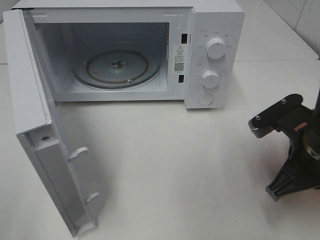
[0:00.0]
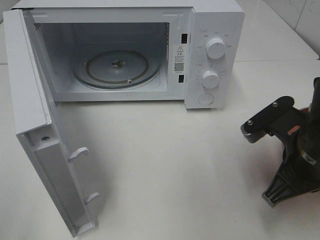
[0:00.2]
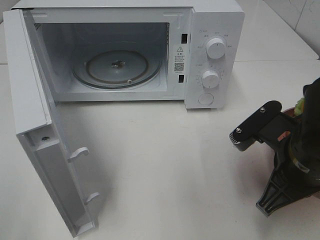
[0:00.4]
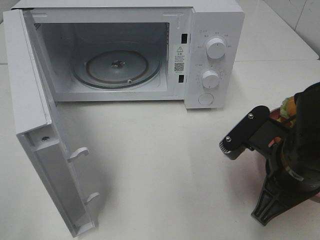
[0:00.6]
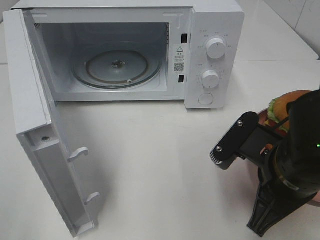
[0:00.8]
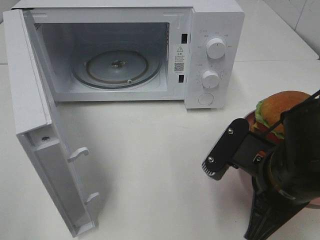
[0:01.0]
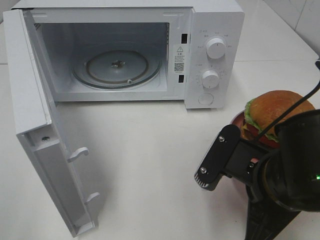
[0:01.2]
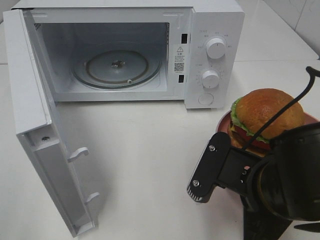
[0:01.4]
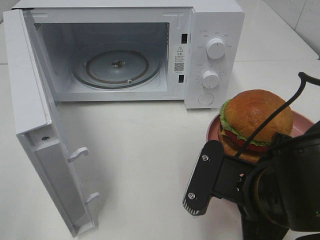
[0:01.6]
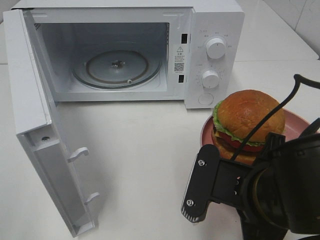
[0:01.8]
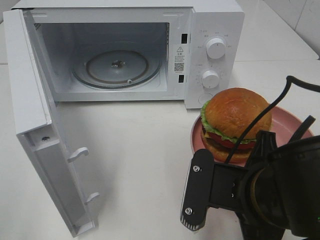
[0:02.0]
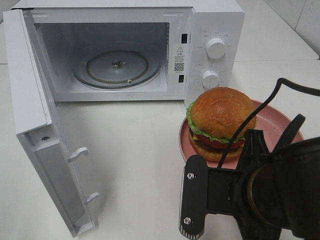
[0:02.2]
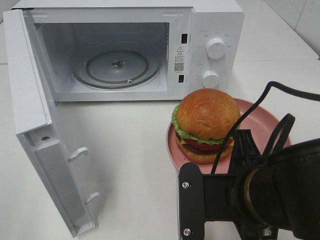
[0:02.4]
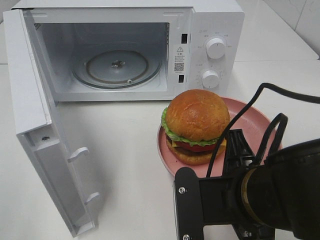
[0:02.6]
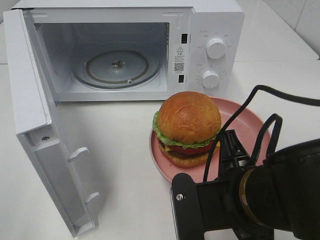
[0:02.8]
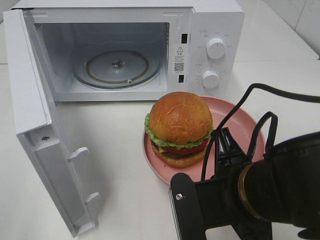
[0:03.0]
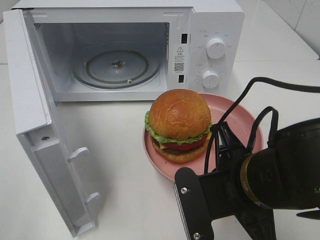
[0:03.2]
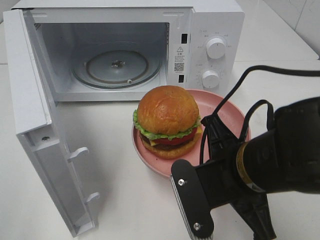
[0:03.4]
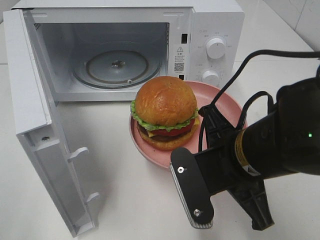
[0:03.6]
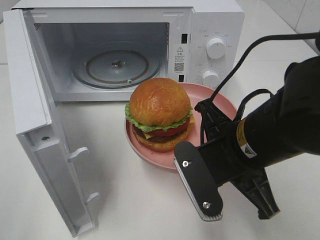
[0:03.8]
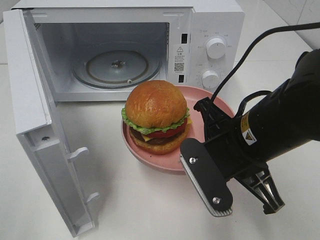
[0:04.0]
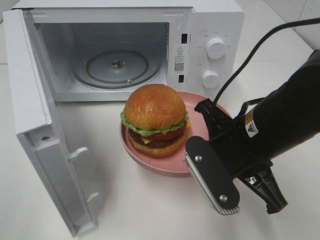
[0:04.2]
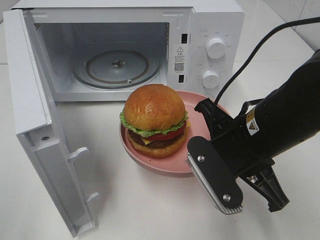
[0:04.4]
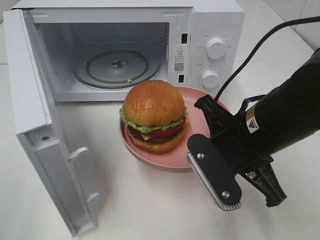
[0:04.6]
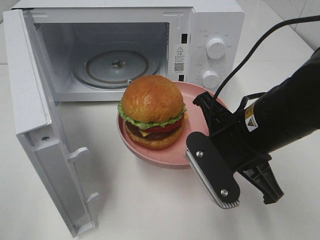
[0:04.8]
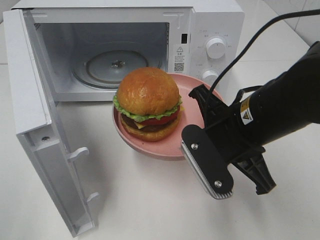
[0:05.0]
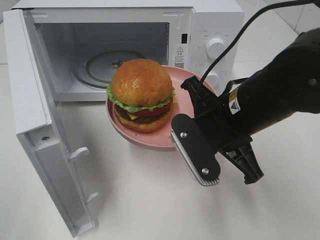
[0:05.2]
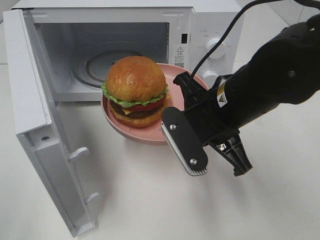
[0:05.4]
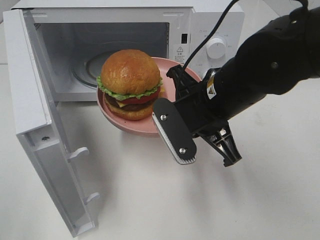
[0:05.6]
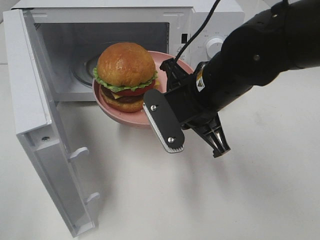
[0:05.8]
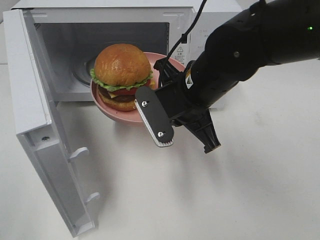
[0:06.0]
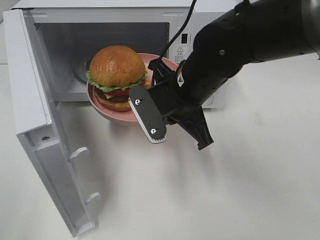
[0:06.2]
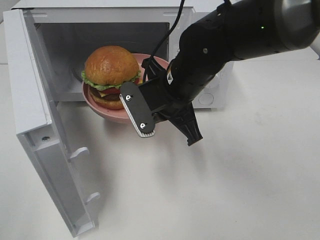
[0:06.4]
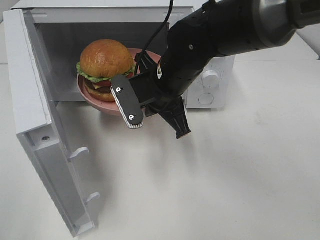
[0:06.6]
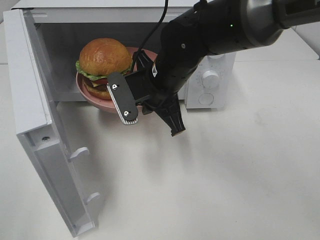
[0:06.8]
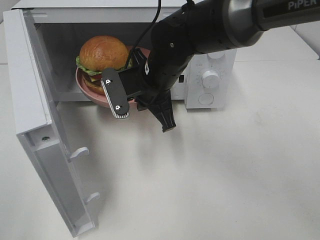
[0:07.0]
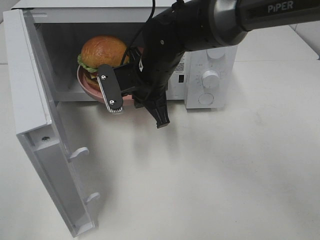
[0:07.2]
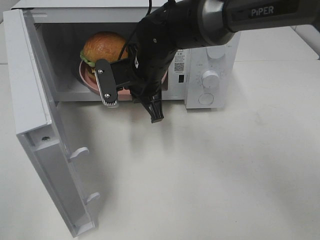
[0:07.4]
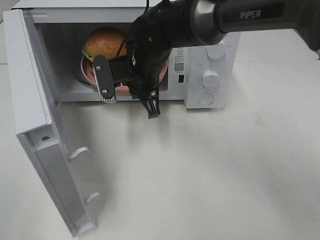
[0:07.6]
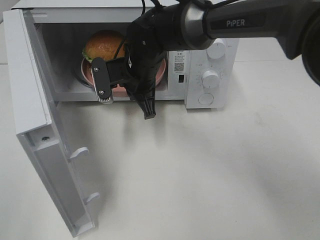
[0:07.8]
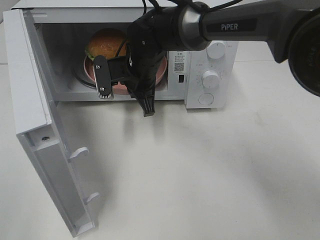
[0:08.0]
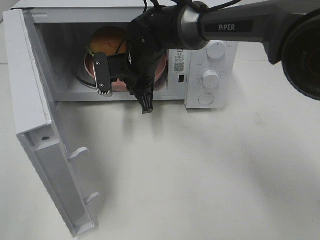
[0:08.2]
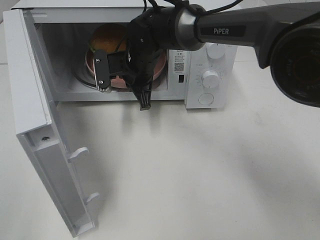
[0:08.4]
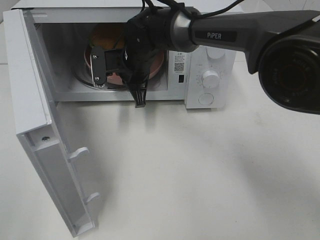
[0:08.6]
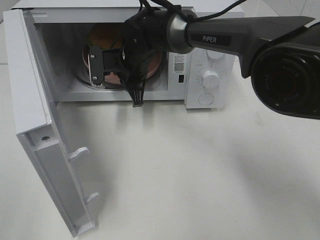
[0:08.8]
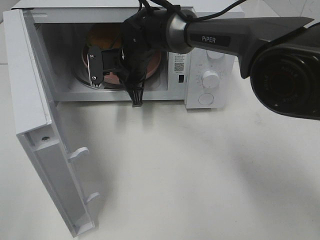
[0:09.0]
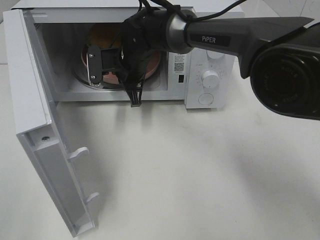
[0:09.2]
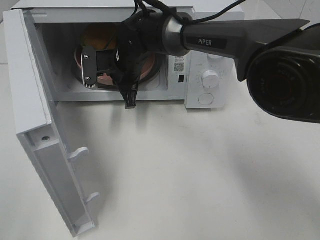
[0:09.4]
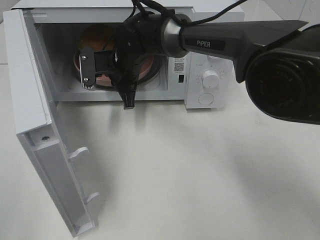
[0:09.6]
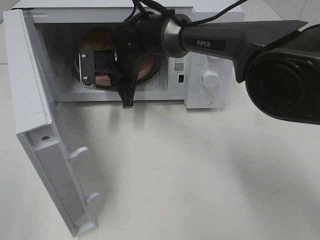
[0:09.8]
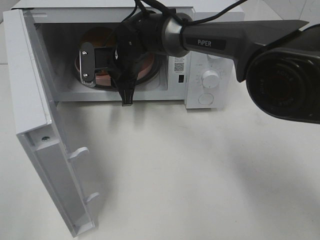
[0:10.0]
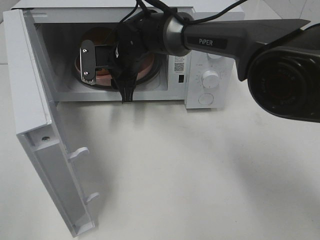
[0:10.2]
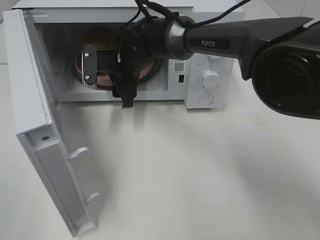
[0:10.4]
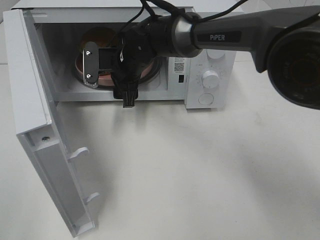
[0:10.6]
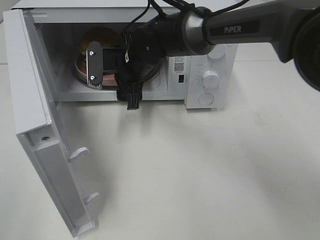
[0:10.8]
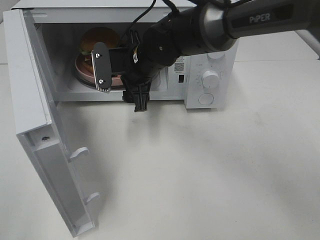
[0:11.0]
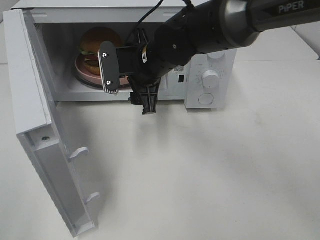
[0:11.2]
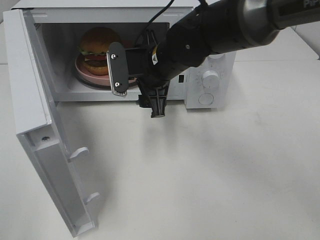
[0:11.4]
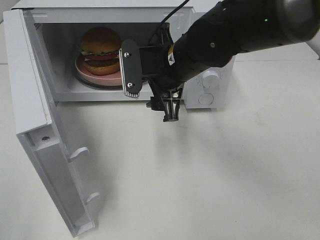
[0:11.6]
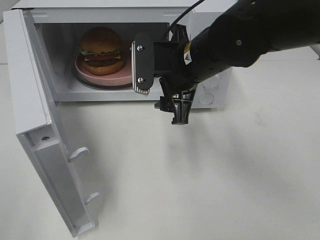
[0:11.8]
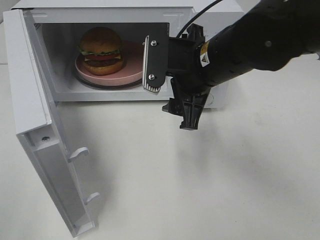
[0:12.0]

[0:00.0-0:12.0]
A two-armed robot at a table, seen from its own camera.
Task of the whole recording: Heat the burger.
Step, 0:00.0 to 0:10.2: Right hand: place the plate in the microwave.
0:00.0 to 0:01.6: The right gripper goes some 10 cm to the left and backward.
0:03.0 to 0:04.4: The right gripper travels forward by about 5 cm.
0:04.4 to 0:06.0: The right gripper travels forward and to the left by approximately 10 cm.
0:06.0 to 0:07.6: The right gripper is displaced forward and to the left by approximately 15 cm.
0:07.6 to 0:09.0: The right gripper goes some 5 cm forward.
0:09.0 to 0:10.4: The right gripper opens up.
0:10.4 to 0:12.0: The right gripper shifts roughly 20 cm backward, to the right and upward.

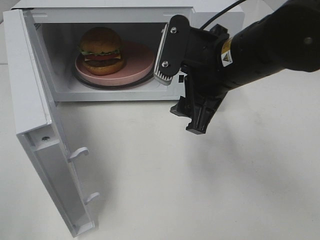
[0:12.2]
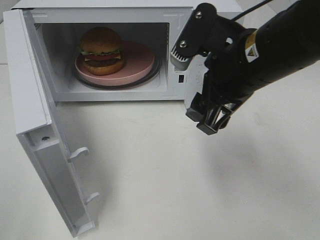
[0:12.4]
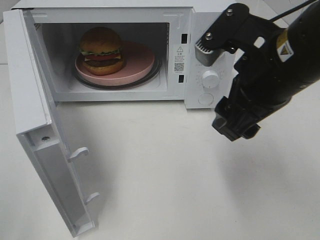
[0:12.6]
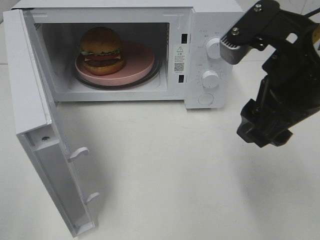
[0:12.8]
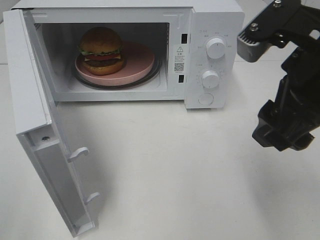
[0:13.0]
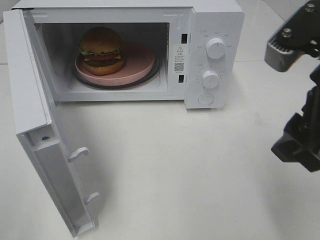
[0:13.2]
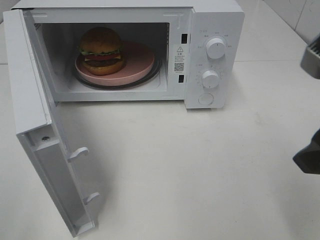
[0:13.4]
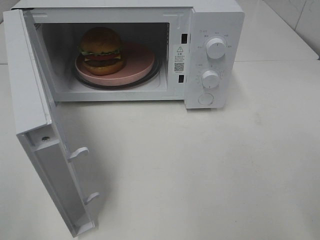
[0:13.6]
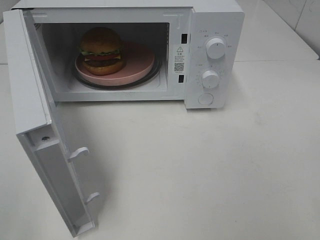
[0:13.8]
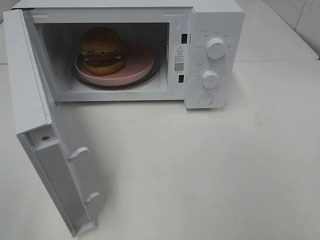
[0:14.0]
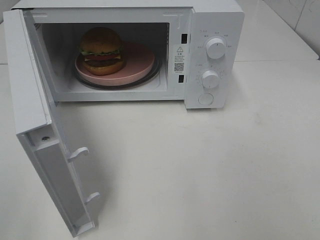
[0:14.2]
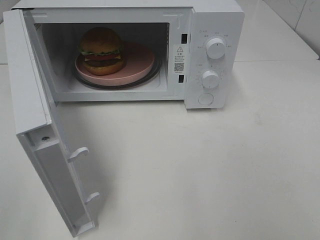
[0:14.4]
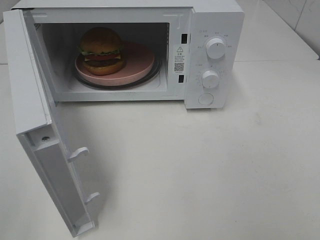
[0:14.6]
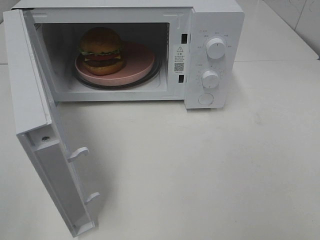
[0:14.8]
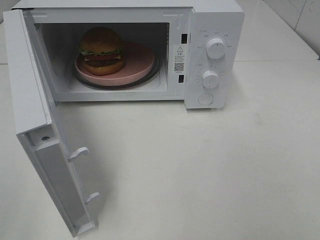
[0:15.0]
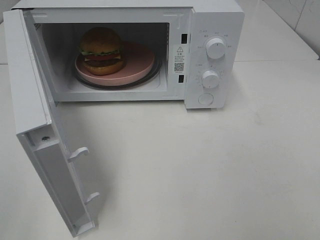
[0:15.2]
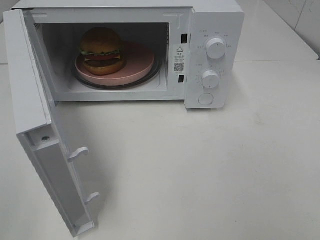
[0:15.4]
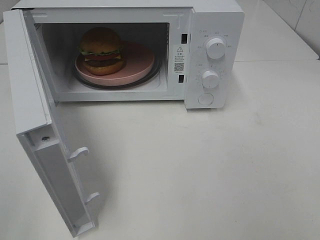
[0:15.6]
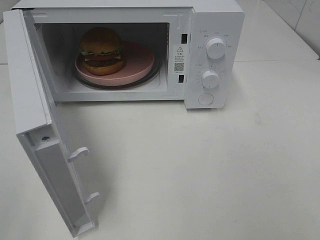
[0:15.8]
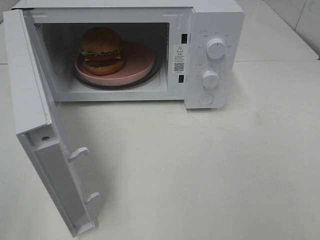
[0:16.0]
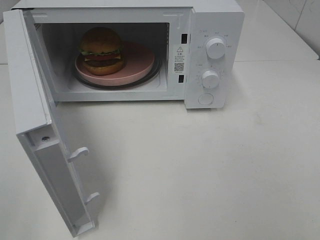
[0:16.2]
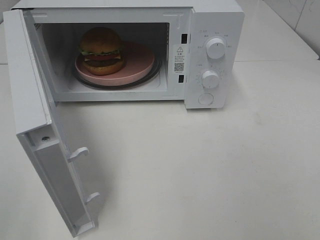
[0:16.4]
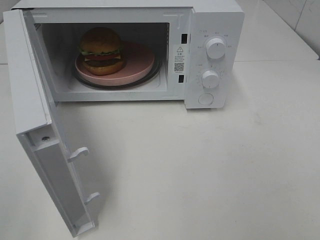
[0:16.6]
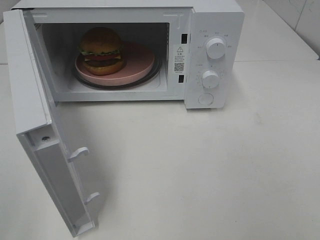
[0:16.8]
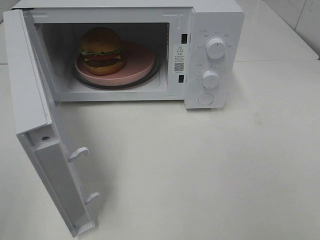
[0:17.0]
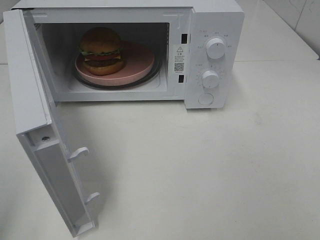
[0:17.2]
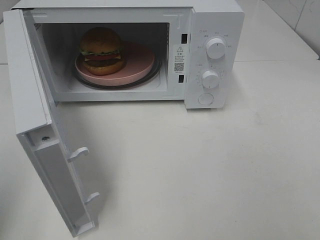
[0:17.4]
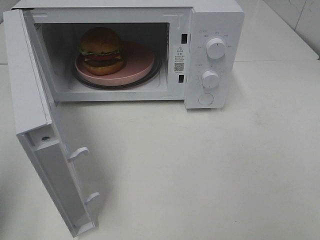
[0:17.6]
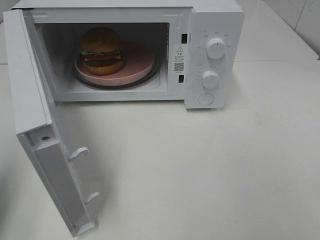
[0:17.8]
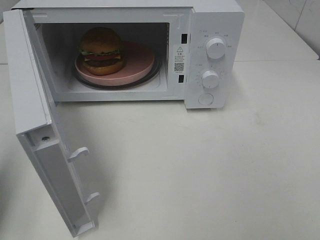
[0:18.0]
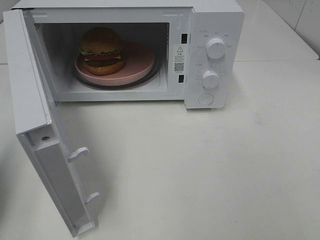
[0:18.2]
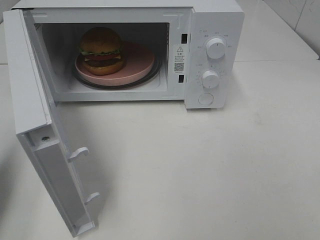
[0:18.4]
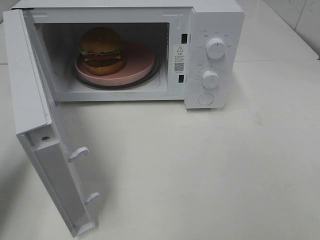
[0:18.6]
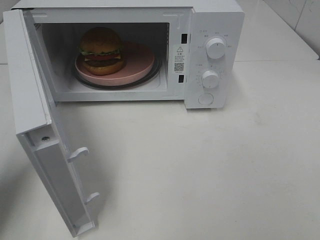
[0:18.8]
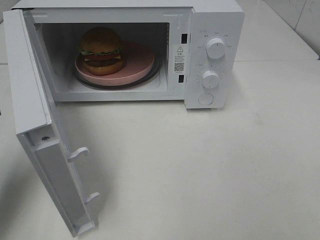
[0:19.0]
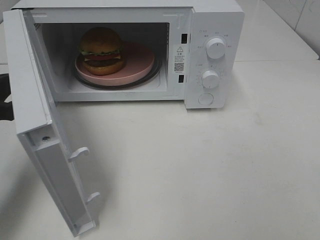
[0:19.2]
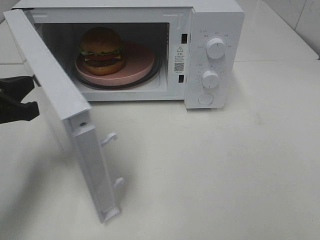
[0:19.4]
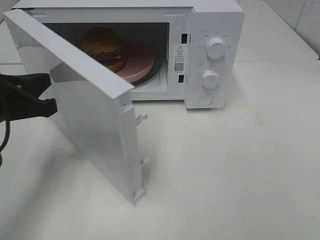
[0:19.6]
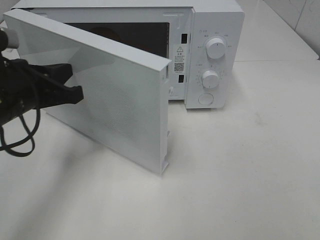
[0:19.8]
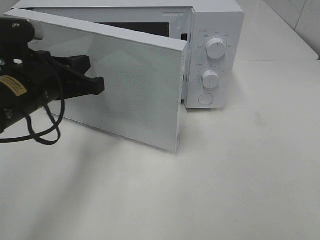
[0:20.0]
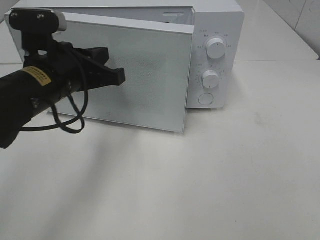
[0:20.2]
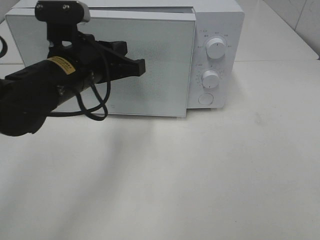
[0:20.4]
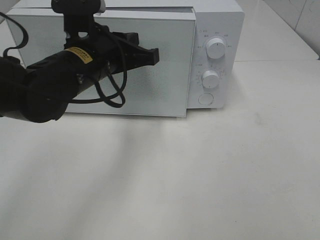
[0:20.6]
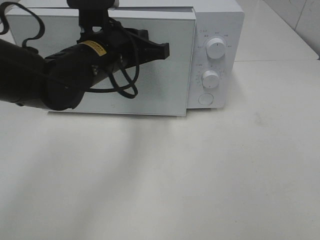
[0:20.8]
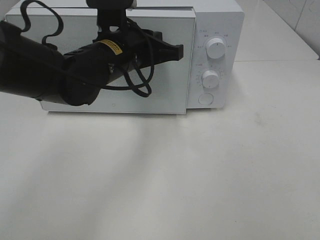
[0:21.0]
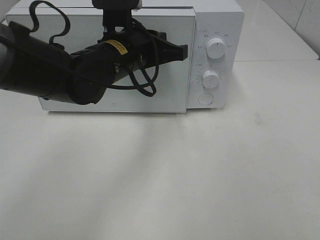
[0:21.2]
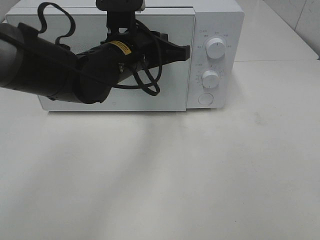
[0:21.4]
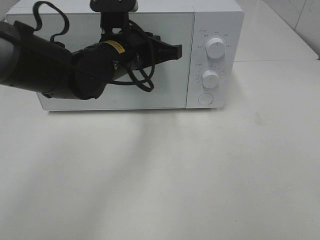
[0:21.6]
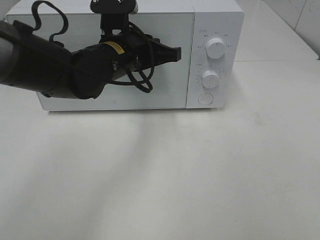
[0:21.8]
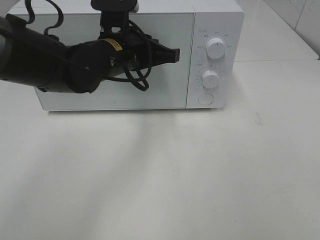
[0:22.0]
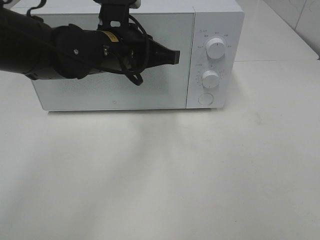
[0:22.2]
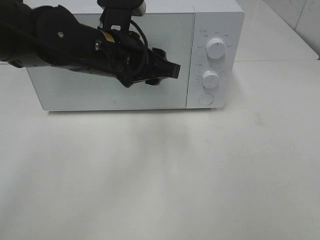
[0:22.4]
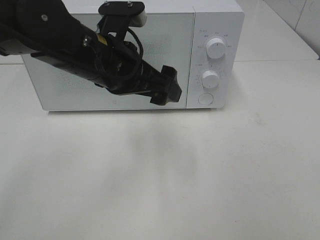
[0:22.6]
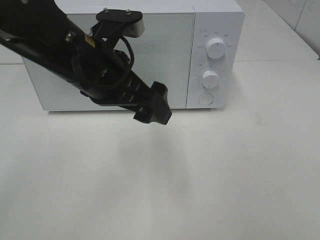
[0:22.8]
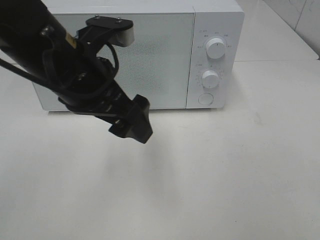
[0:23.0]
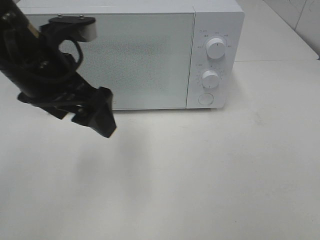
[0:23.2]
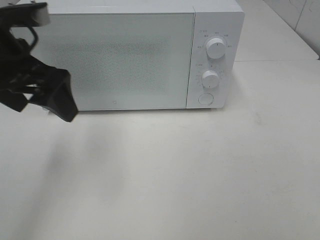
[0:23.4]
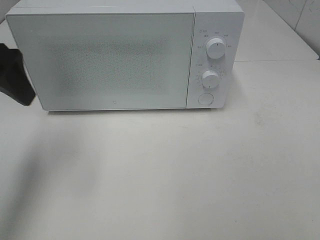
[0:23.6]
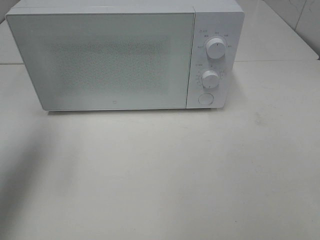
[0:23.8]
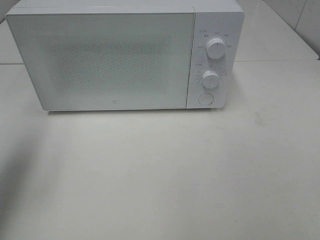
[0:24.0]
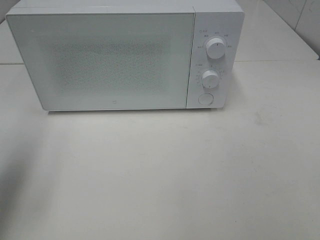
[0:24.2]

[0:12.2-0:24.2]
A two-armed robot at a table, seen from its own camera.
Task of the whole recording: Heat the burger.
Step, 0:12.2 to 0:22.2: Left hand: close the microwave door.
0:12.2 to 0:13.8: The right gripper heads to the right and backward, covering approximately 25 cm.
0:15.2 to 0:16.6: The two grippers keep their place.
0:16.6 to 0:18.2: The left gripper moves forward, roughly 15 cm, and closes its fingers.
0:18.2 to 0:19.8: The left gripper heads to the right, forward and downward, covering some 15 cm.
0:19.8 to 0:21.2: The left gripper goes some 15 cm to the right and forward.
0:21.2 to 0:22.6: The left gripper is displaced backward by approximately 5 cm, and opens up.
0:22.6 to 0:24.2: The left gripper is displaced to the left by roughly 25 cm.
